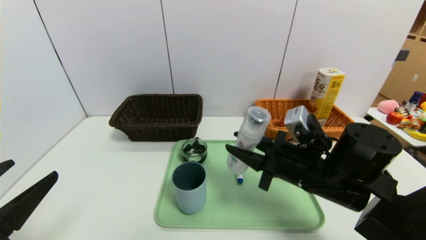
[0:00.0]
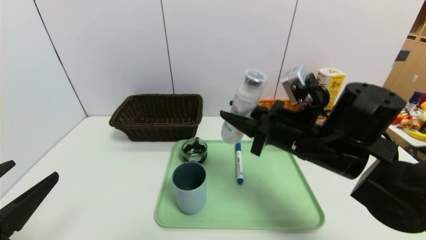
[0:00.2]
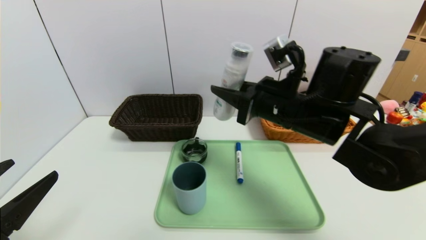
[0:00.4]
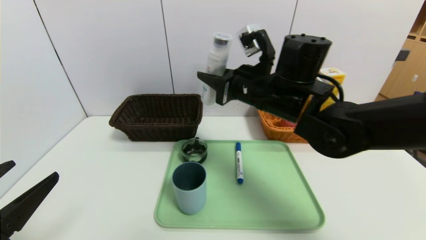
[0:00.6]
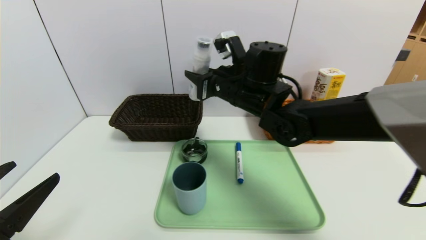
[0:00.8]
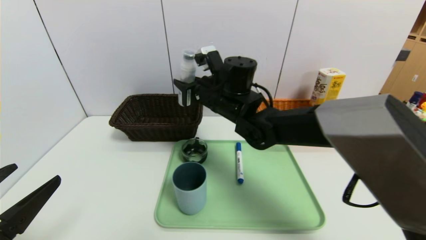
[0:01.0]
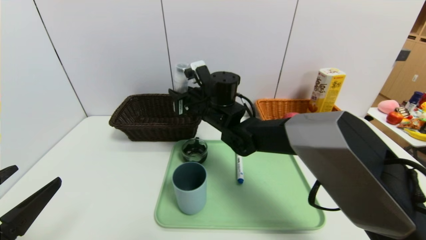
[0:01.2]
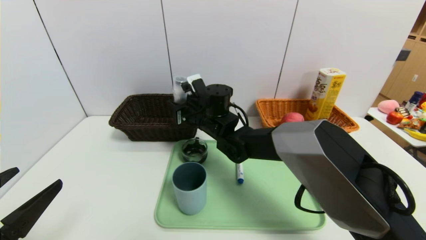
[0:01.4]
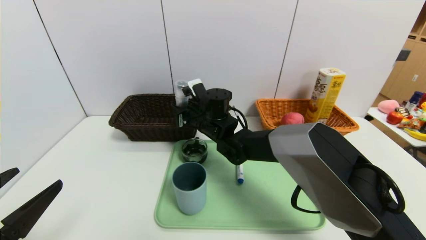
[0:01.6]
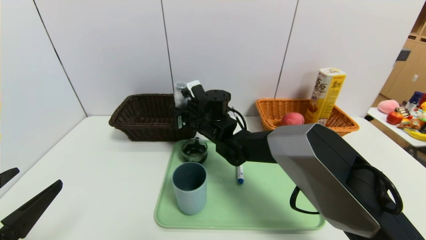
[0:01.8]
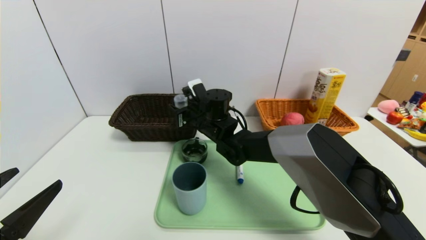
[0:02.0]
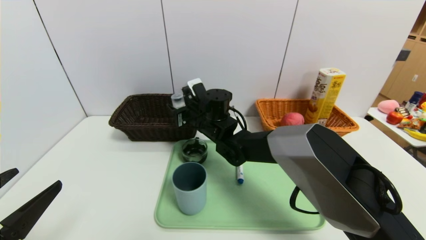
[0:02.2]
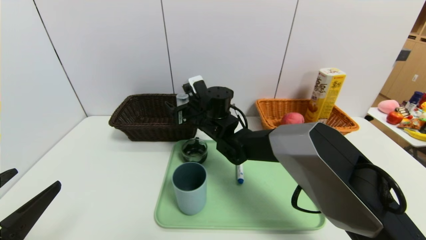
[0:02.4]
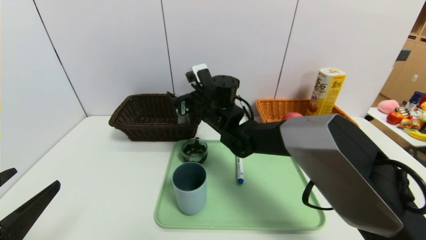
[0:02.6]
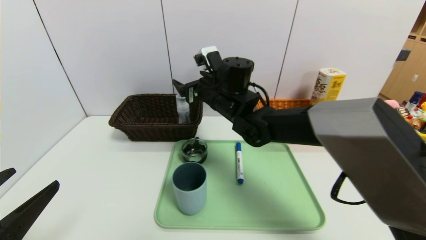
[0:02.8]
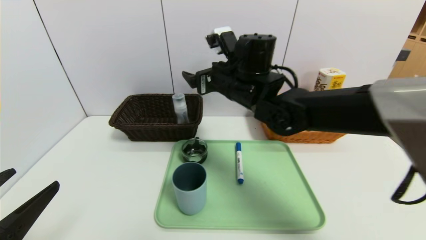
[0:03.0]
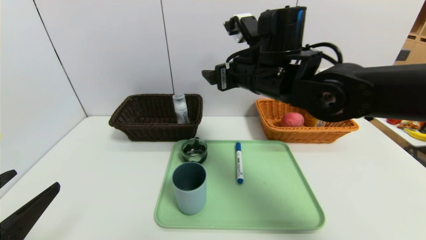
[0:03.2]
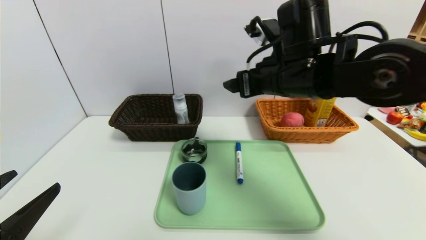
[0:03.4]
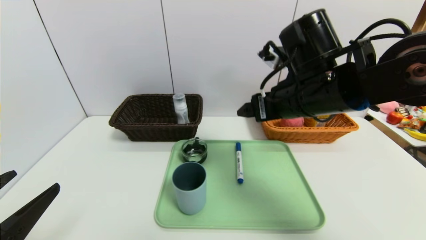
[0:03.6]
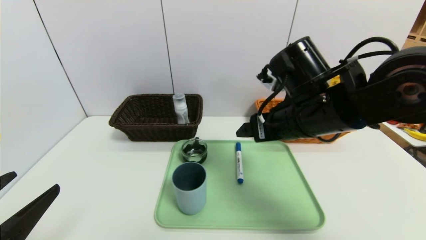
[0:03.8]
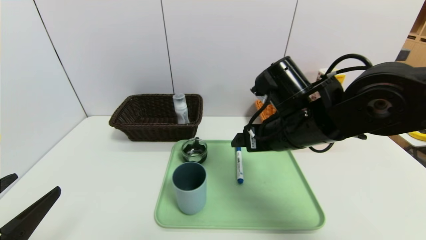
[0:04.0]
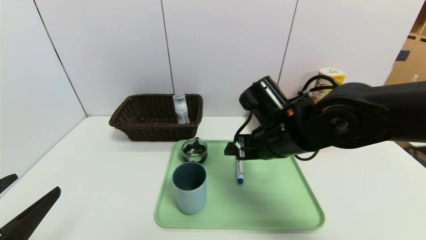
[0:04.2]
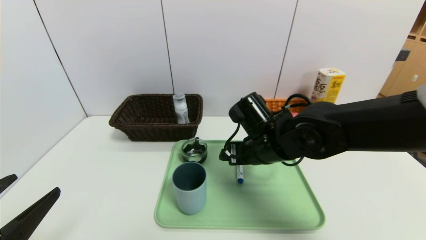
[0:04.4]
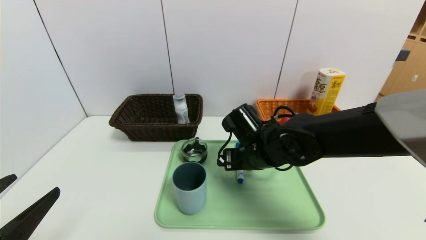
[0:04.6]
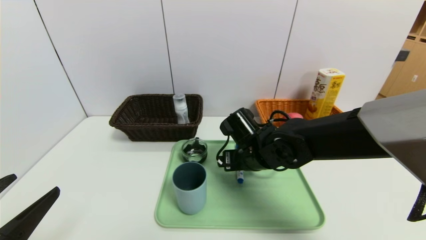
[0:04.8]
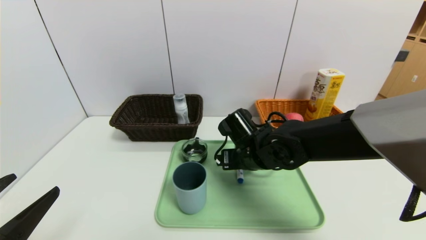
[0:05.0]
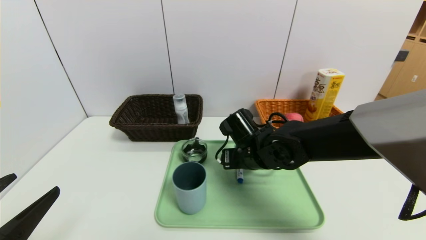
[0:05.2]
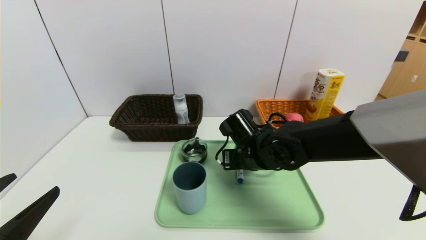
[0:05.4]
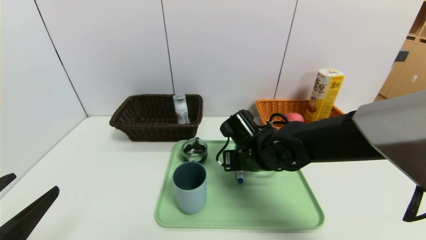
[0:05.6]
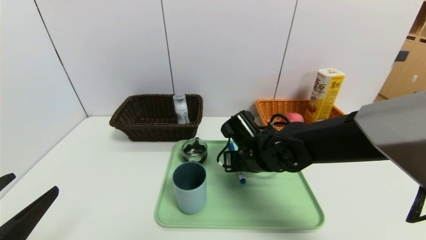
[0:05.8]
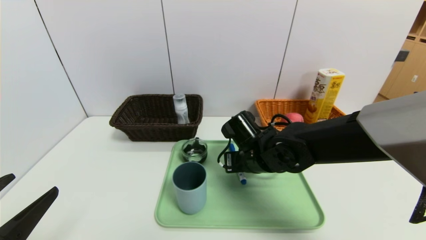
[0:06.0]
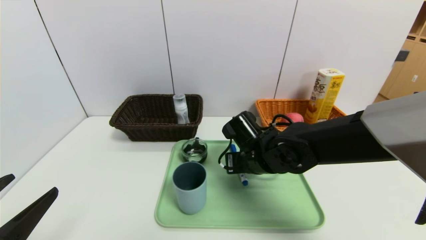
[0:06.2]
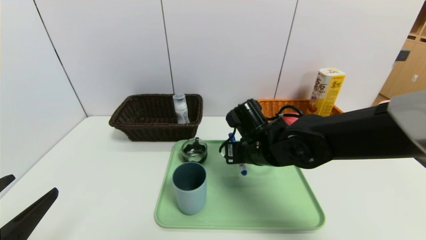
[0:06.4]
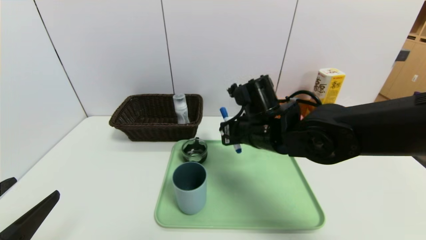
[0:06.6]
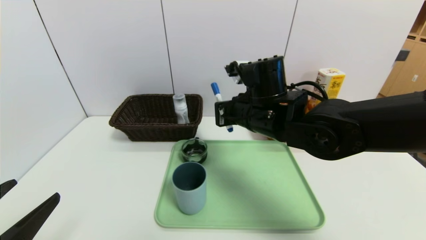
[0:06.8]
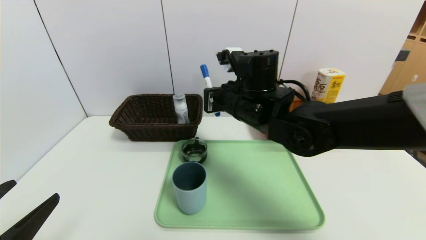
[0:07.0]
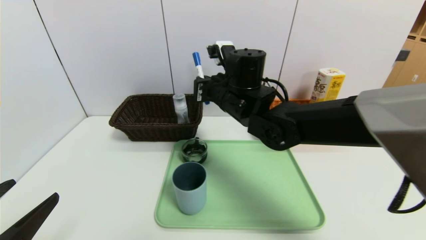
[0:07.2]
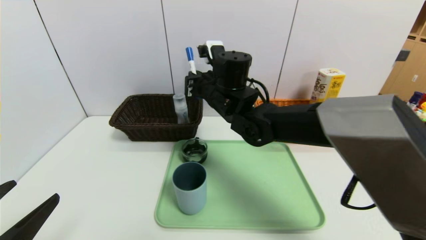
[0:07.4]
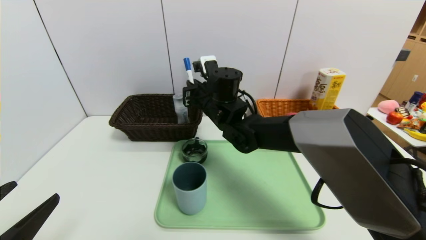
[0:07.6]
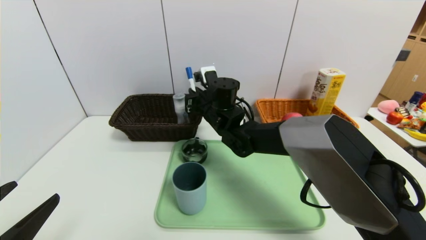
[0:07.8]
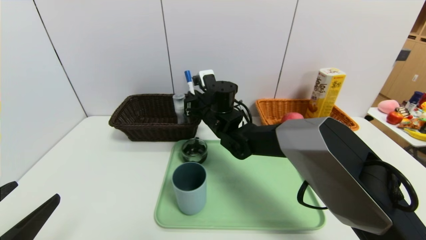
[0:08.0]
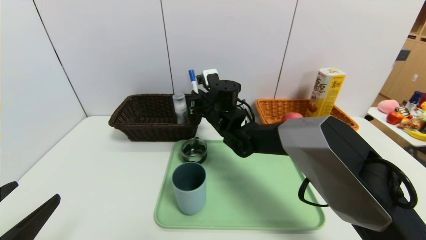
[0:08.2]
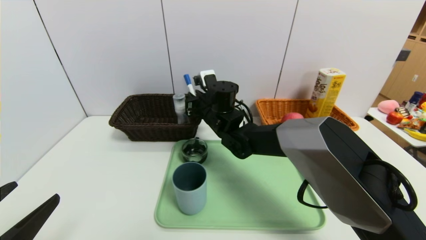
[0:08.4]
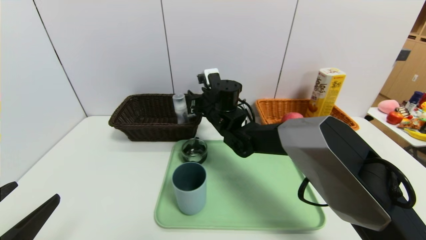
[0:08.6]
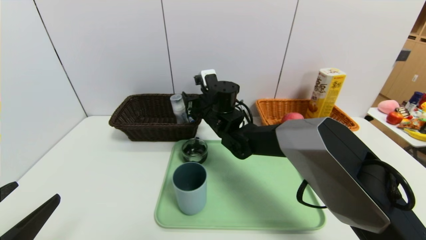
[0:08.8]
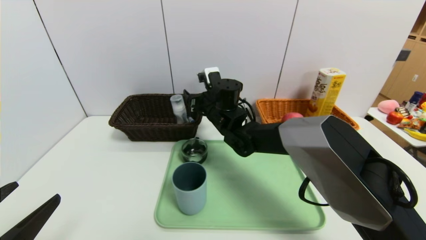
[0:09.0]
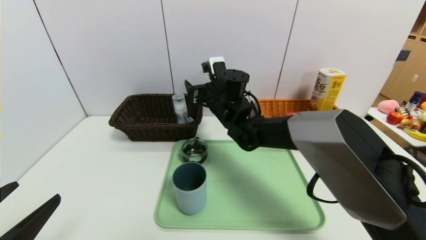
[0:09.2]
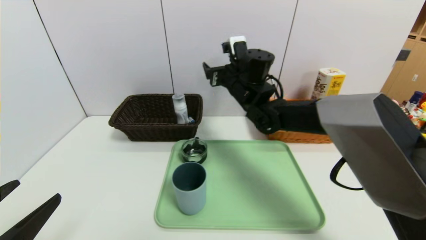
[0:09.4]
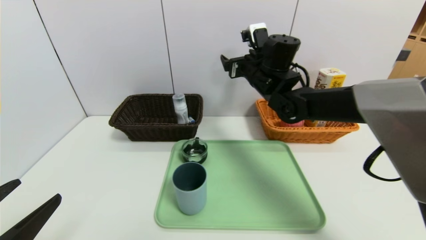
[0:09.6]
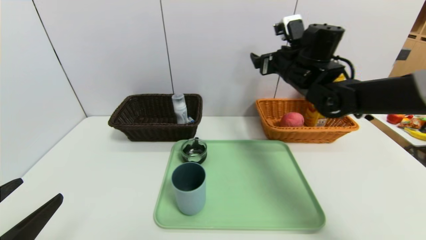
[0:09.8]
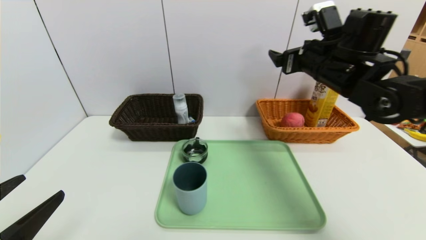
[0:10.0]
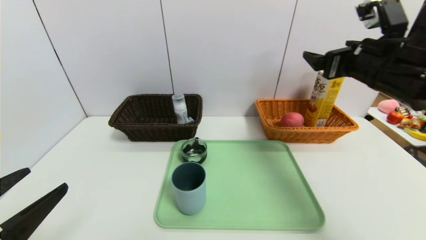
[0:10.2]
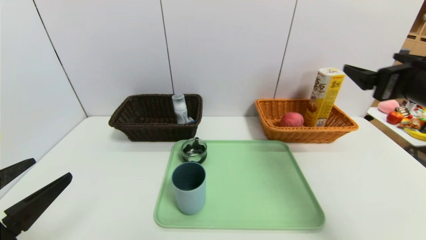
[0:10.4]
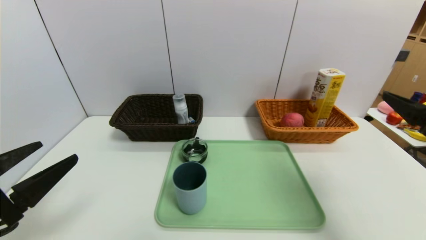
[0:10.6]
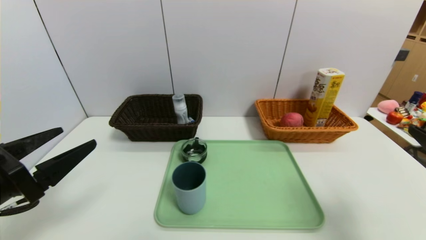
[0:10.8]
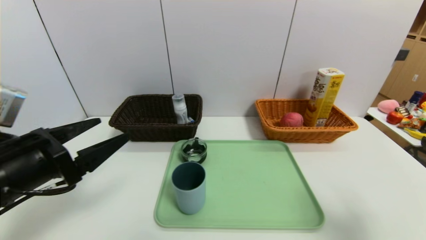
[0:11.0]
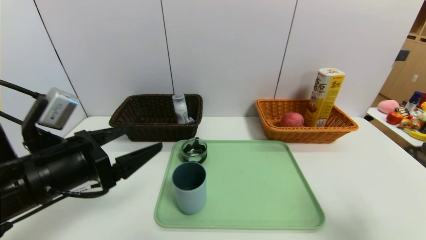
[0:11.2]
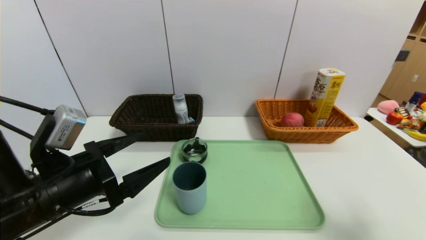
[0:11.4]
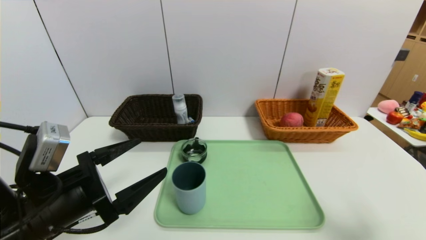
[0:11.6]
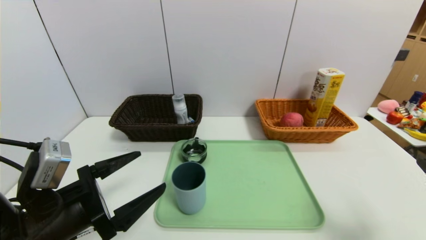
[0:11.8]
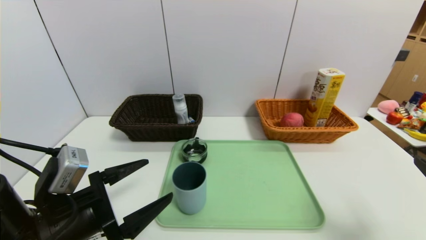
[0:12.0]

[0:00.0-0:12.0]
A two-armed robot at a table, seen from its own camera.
Task of the whole recording: place the food in the right basket with the right gripper, and place the non food items in the left basket with the left gripper.
0:00.0 to 0:01.6: The right gripper heads to the left and forward, covering roughly 25 cm.
0:01.6 to 0:03.0: The right gripper goes some 15 cm upward and to the right, and opens its fingers.
0:03.0 to 0:04.4: The right gripper is displaced downward and backward by roughly 10 cm.
0:04.4 to 0:06.0: The right gripper is displaced downward by approximately 5 cm, and closes up.
0:06.0 to 0:07.6: The right gripper heads upward, forward and to the left, covering about 15 cm.
0:07.6 to 0:09.0: The right gripper opens up.
0:09.0 to 0:10.4: The right gripper is displaced to the right, backward and upward by about 35 cm.
0:10.4 to 0:12.0: The left gripper goes some 10 cm to the right and forward. The right gripper goes roughly 15 cm backward and downward.

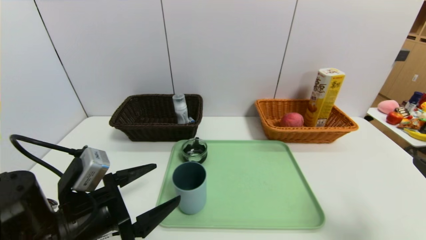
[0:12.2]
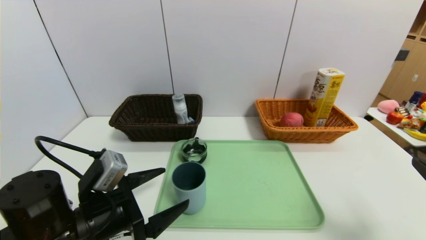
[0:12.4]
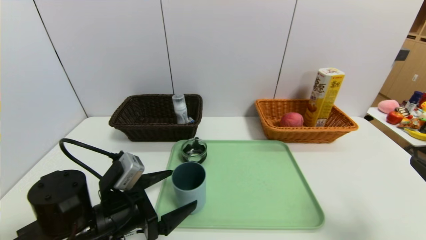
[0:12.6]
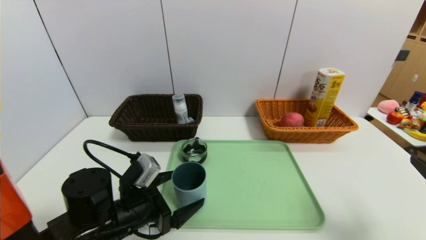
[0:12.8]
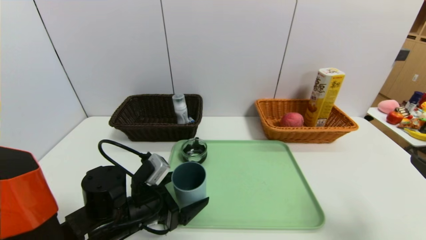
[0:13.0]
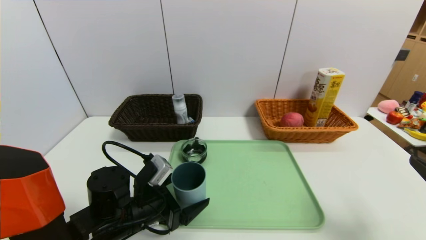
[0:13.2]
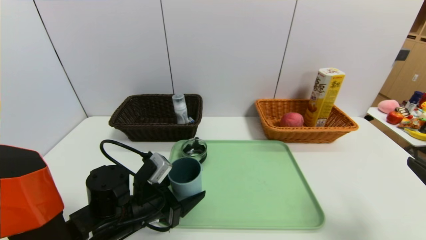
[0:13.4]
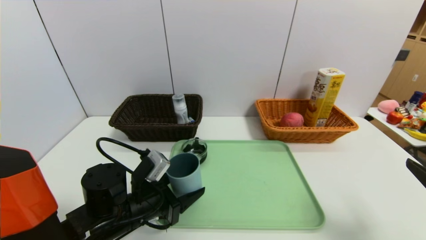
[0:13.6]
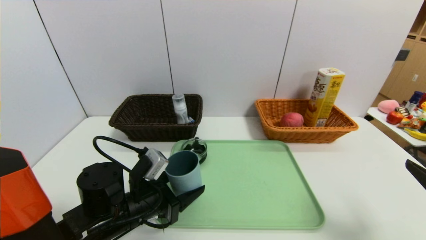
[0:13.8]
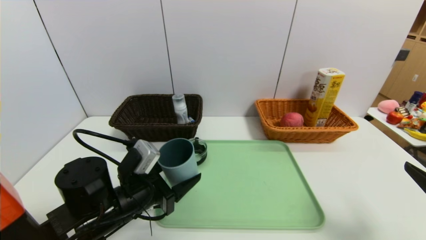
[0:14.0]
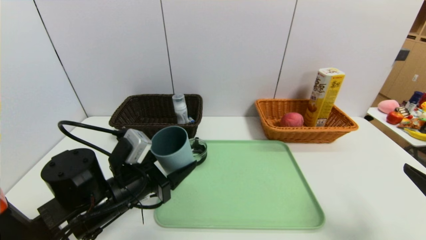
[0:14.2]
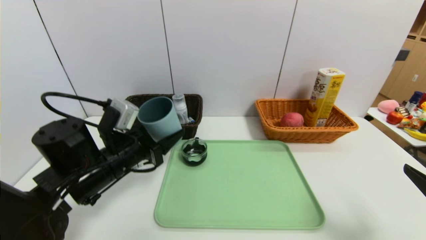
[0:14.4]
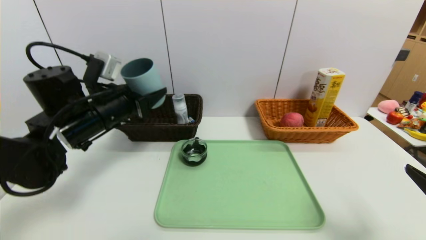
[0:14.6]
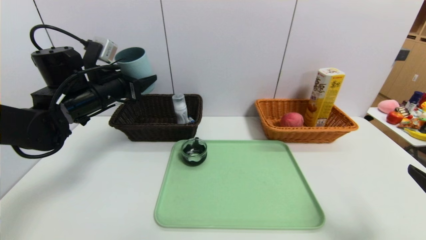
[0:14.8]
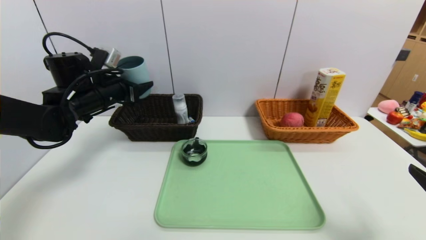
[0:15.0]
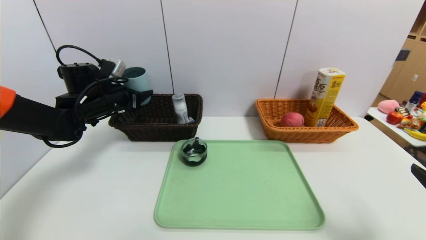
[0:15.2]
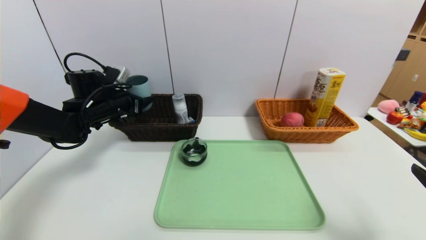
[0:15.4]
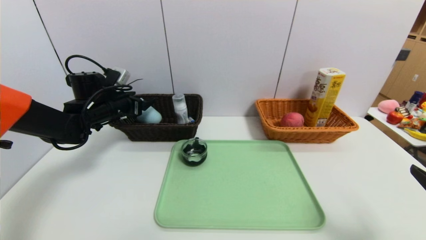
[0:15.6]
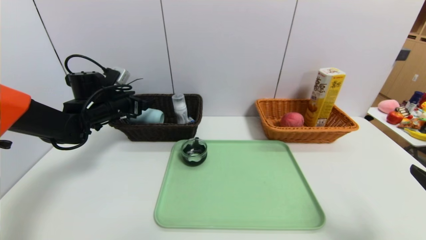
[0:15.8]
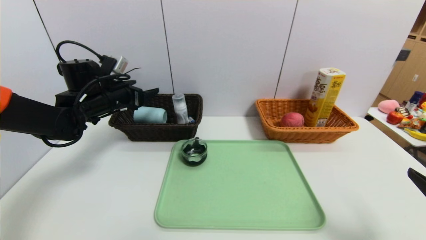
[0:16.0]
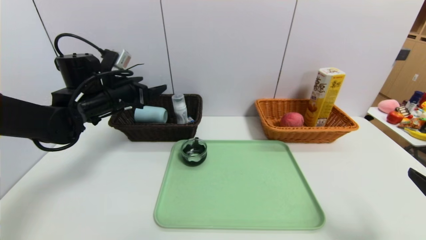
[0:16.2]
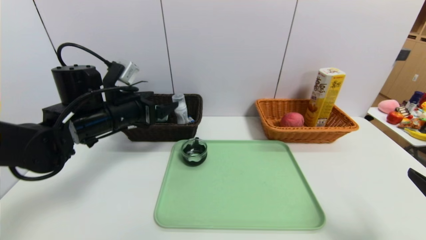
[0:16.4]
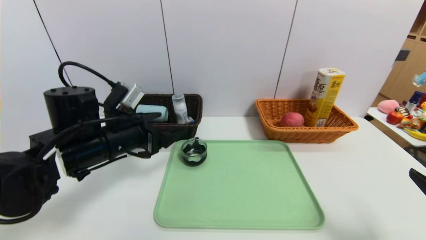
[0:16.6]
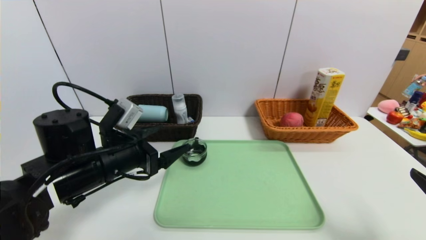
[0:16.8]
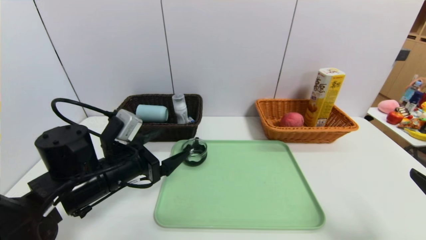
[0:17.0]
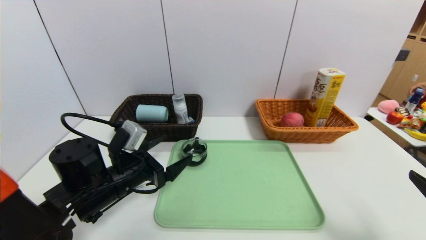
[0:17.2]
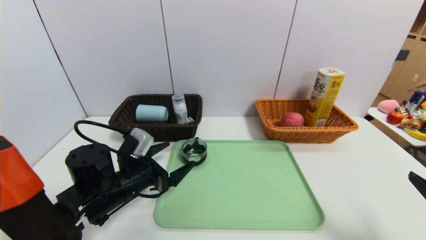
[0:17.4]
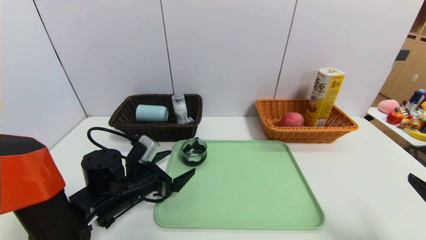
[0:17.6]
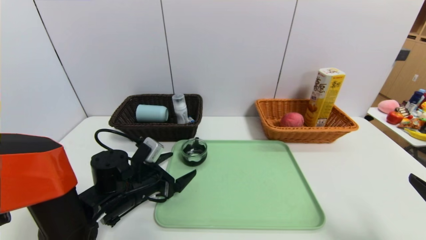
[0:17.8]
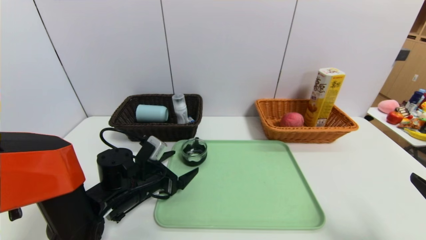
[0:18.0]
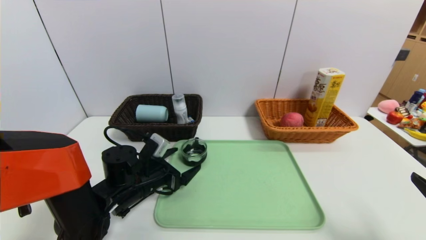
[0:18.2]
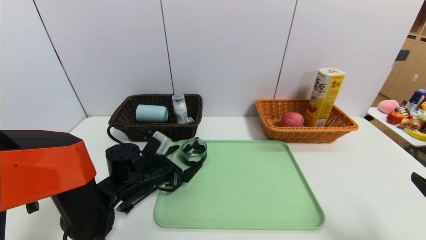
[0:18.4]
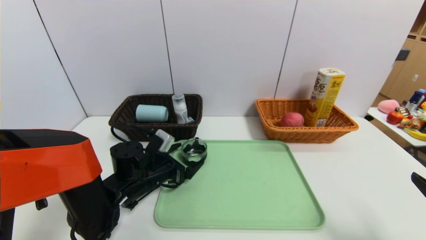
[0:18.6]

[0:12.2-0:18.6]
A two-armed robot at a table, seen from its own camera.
Task of the whole recording: place the food in the right basket with the right gripper, and place the non food items in the left basket with the left gripper.
Step, 0:12.2 to 0:15.8: Grasp the blue cup and put it in the left basket.
0:12.2 to 0:13.8: The left gripper heads forward, covering approximately 5 cm, and closes up.
0:13.8 to 0:15.4: The left gripper is displaced forward, to the left and upward by some 25 cm.
0:15.4 to 0:17.0: The left gripper goes some 20 cm backward and to the right, and opens.
0:17.0 to 0:18.6: The left gripper shifts about 10 cm downward and forward.
